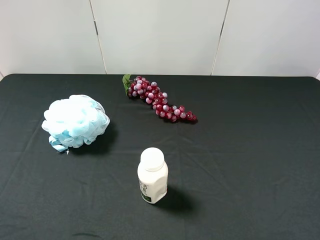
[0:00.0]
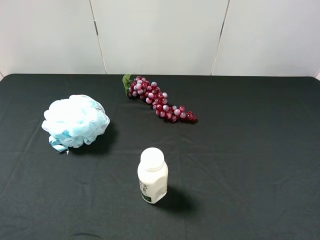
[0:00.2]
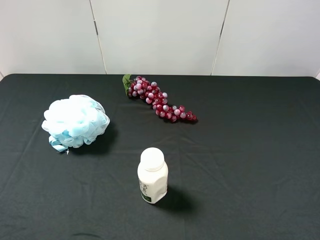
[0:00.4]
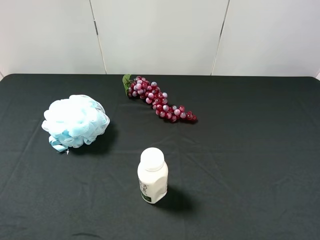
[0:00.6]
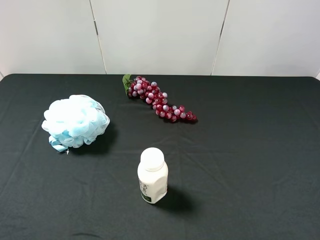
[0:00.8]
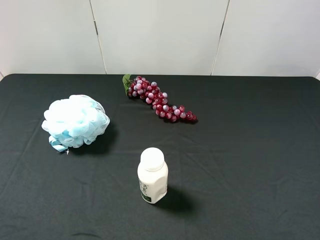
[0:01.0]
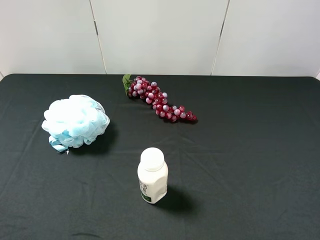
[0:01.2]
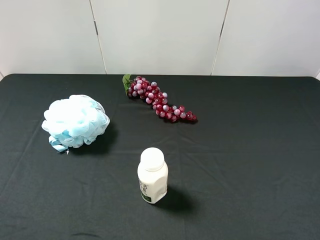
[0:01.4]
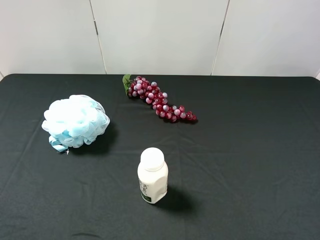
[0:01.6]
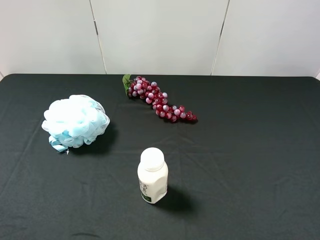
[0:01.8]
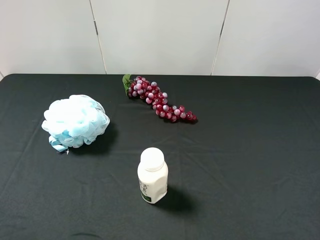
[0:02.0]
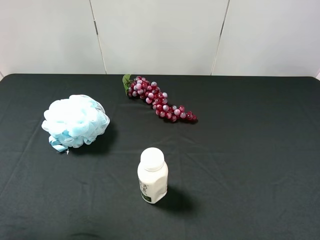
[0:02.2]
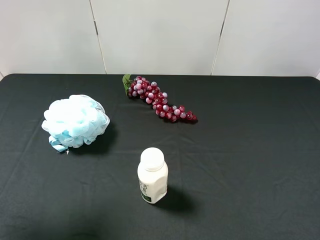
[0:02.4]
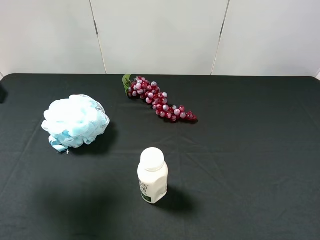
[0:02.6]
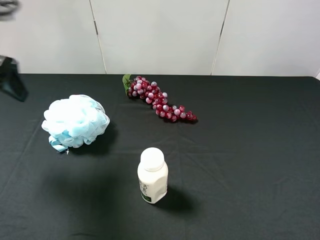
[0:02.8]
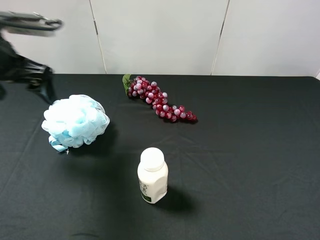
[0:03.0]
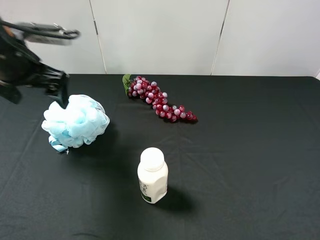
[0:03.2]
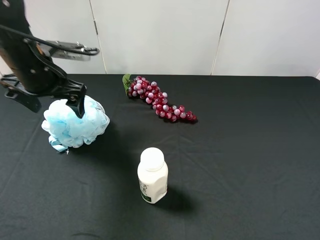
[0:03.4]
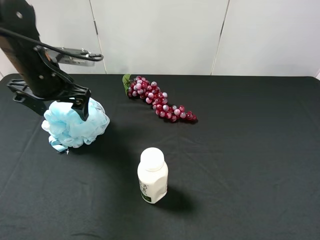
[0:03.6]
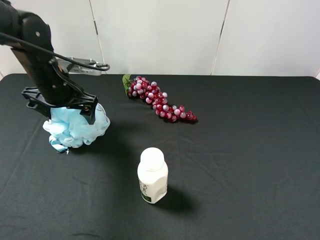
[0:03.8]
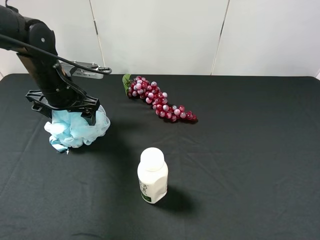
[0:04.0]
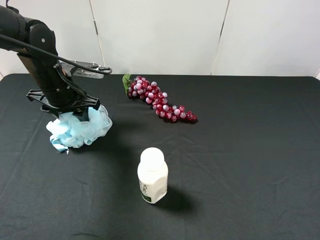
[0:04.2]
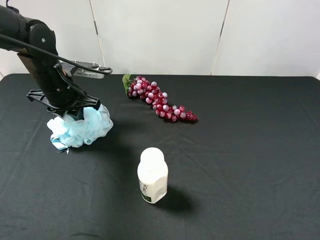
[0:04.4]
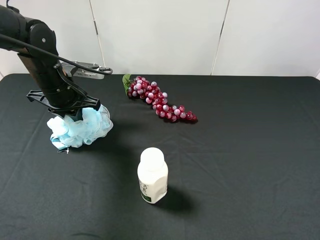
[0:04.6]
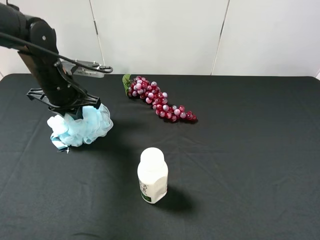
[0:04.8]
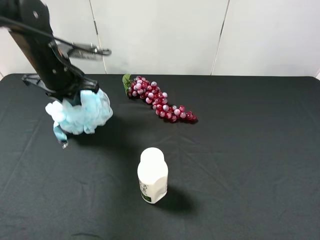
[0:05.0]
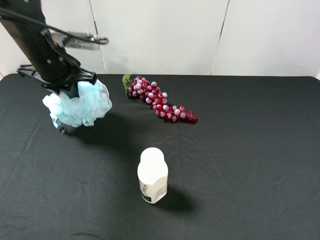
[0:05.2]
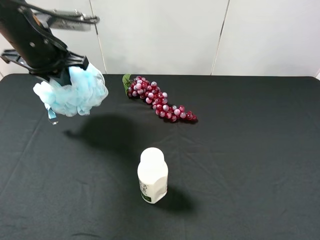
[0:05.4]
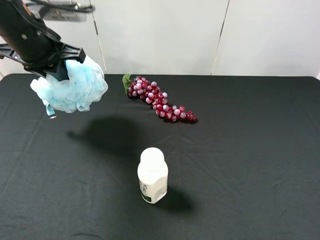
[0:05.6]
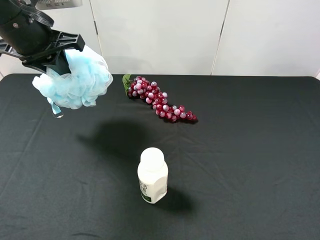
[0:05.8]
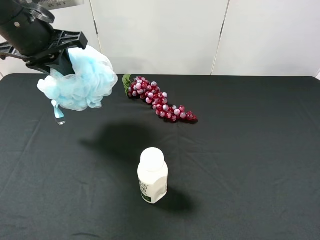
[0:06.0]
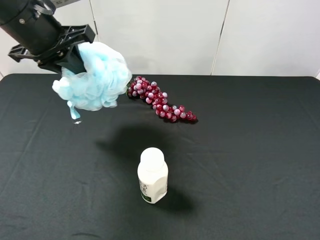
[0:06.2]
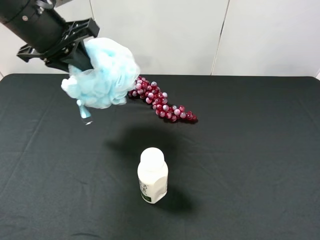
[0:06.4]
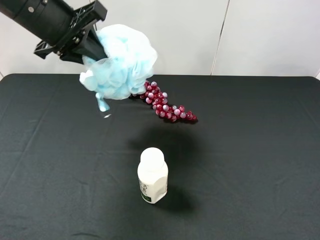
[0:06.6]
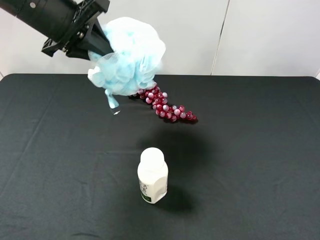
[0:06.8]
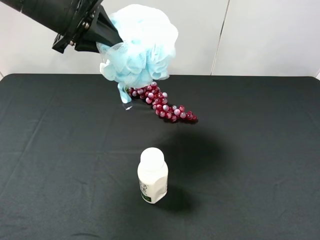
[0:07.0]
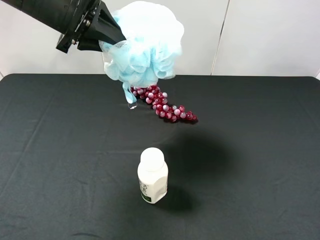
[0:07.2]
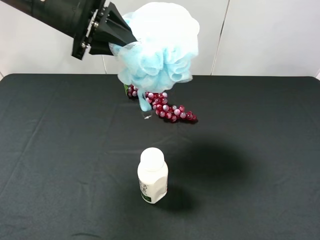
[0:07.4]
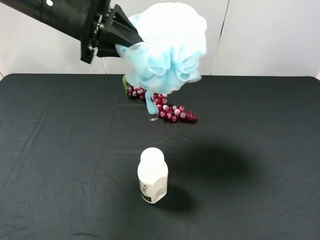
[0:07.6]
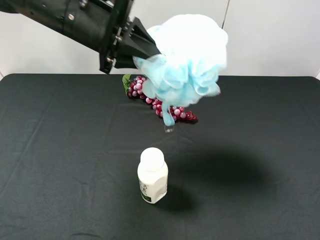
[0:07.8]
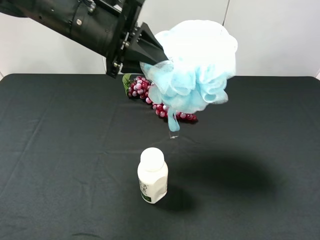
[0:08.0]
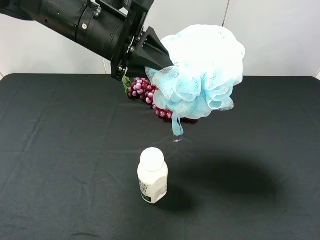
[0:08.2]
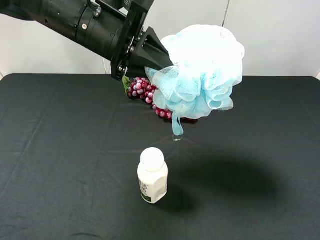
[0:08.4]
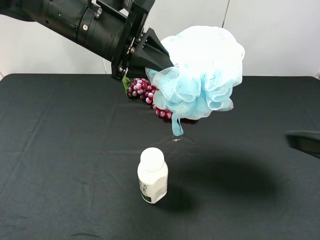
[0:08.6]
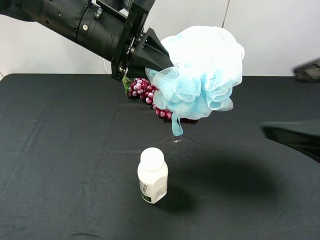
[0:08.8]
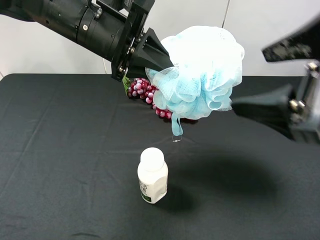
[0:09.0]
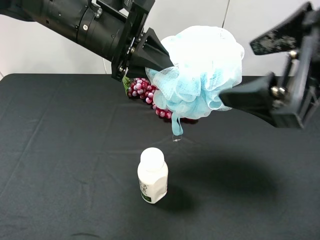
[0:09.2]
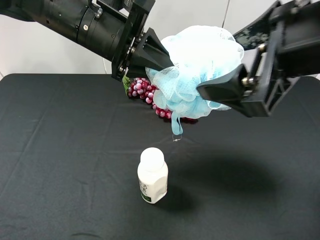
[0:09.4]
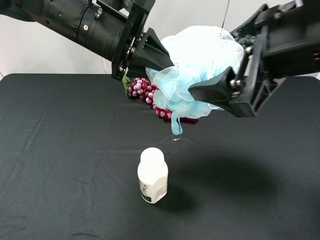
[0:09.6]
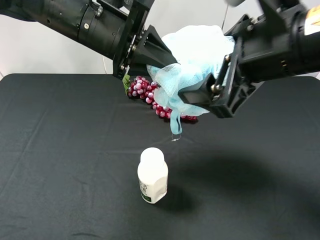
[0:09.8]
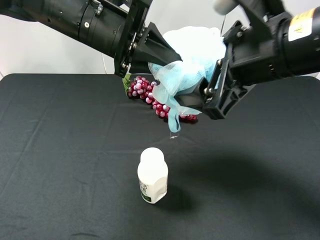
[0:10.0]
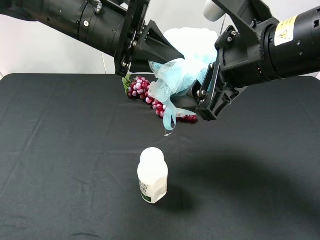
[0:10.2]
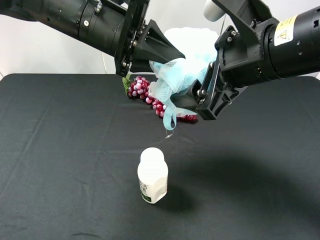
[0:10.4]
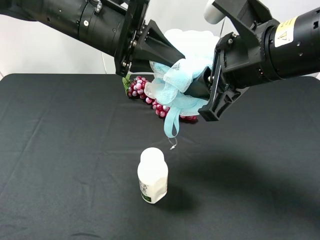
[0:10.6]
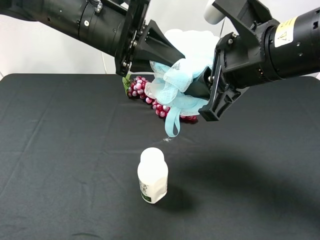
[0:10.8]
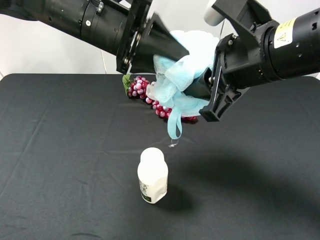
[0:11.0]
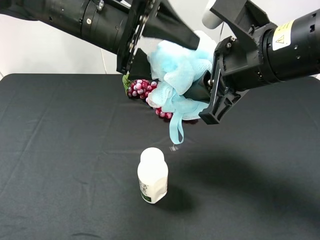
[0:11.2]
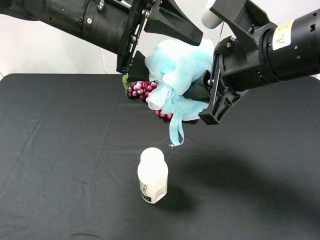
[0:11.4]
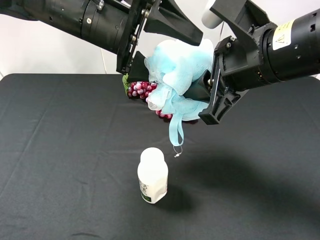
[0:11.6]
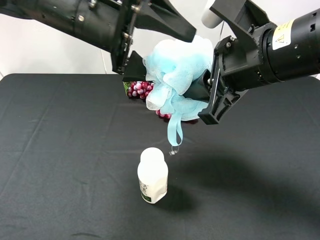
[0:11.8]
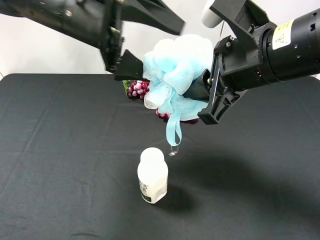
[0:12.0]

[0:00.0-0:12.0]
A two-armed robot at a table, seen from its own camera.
Task of the whole recording: use the left gripper to pick up the item and transfer it from the left gripper to the right gripper.
0:00.0 to 0:01.6: Neither gripper changes place.
0:01.6 to 0:03.0: The left gripper heads forward, covering some 30 cm.
0:03.0 to 0:04.4: The left gripper is displaced downward and forward by about 10 cm, and closes up.
0:04.4 to 0:06.0: The left gripper is displaced upward by about 15 cm.
0:06.0 to 0:07.6: The left gripper heads to the right, covering about 5 cm.
0:07.6 to 0:09.0: The right gripper travels forward, to the left and upward by roughly 15 cm.
0:09.0 to 0:10.4: The right gripper goes approximately 10 cm forward and to the left.
0:10.4 to 0:12.0: The right gripper closes its fingers. Meanwhile the left gripper opens its fingers.

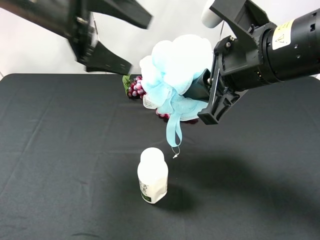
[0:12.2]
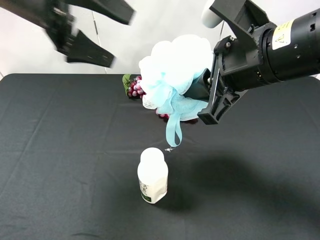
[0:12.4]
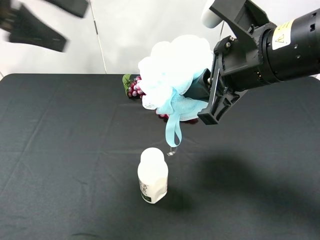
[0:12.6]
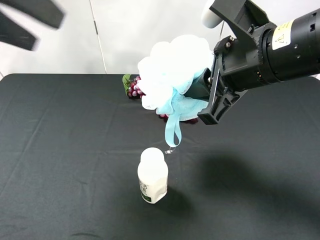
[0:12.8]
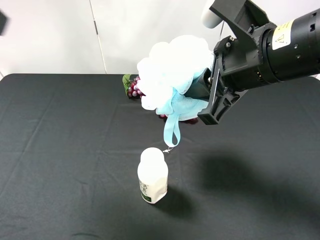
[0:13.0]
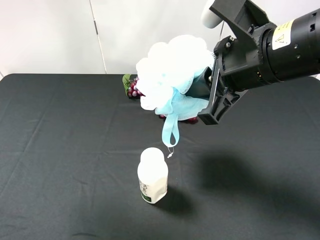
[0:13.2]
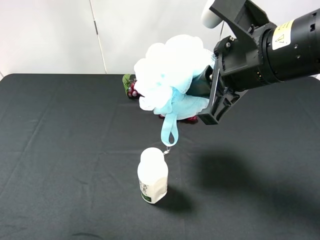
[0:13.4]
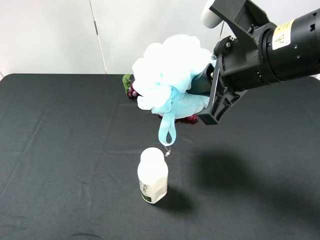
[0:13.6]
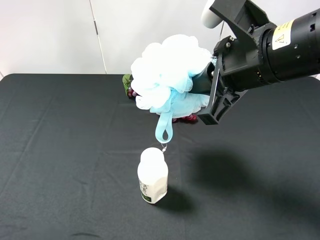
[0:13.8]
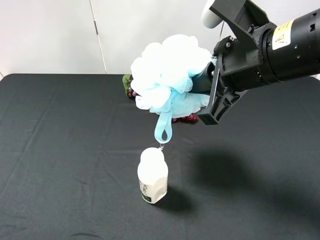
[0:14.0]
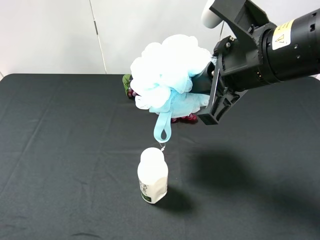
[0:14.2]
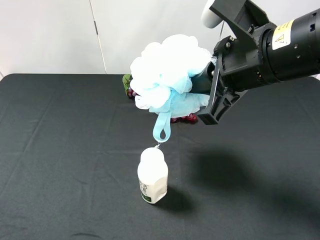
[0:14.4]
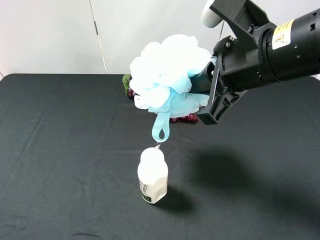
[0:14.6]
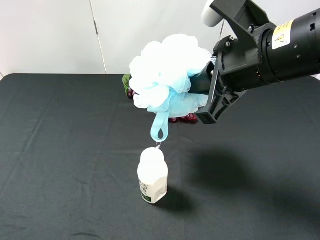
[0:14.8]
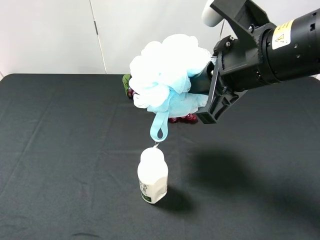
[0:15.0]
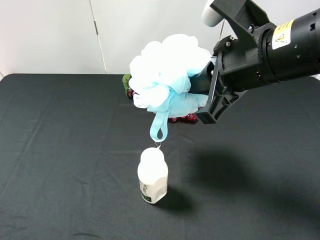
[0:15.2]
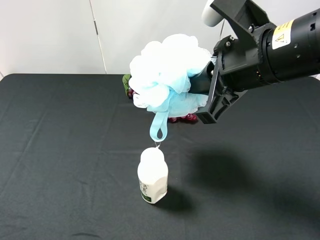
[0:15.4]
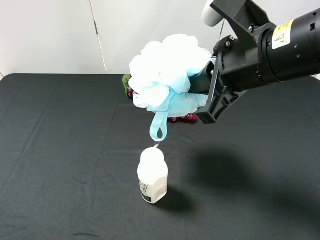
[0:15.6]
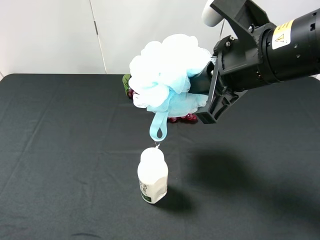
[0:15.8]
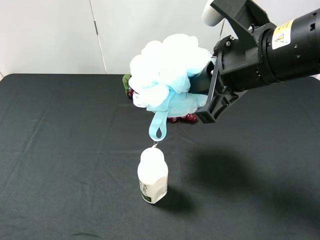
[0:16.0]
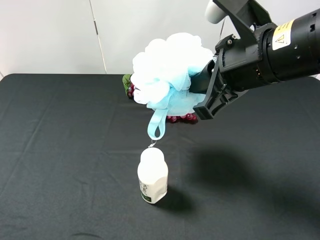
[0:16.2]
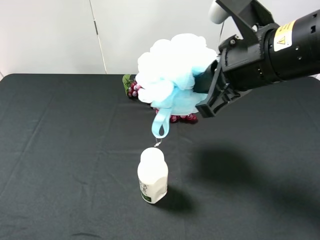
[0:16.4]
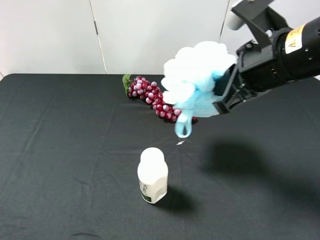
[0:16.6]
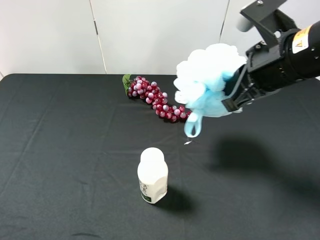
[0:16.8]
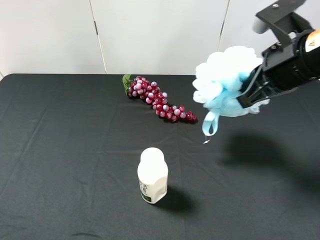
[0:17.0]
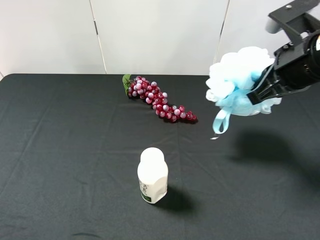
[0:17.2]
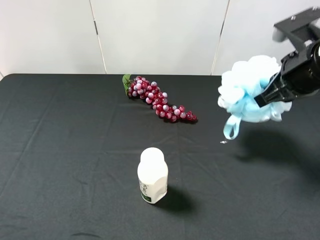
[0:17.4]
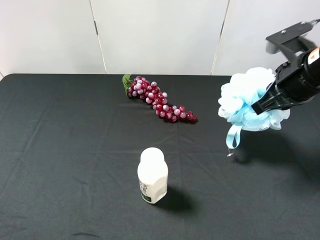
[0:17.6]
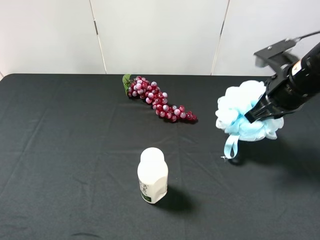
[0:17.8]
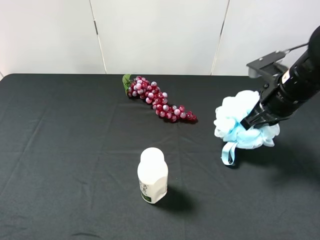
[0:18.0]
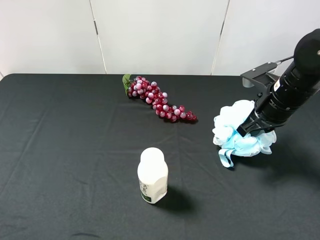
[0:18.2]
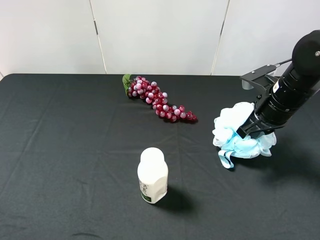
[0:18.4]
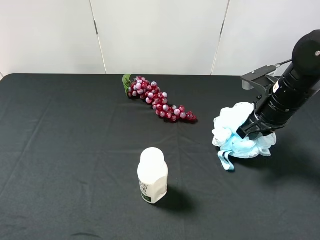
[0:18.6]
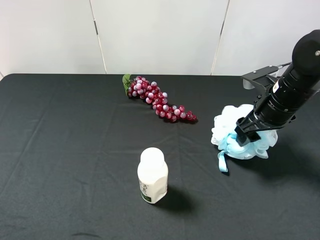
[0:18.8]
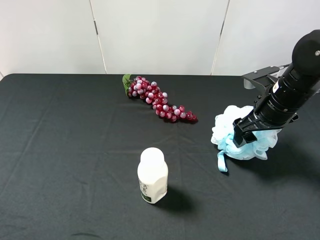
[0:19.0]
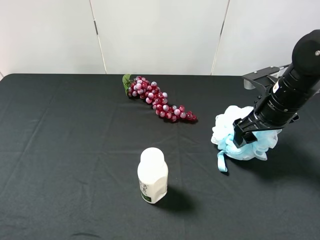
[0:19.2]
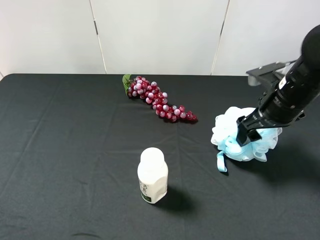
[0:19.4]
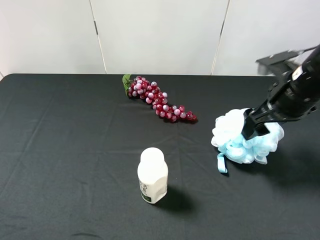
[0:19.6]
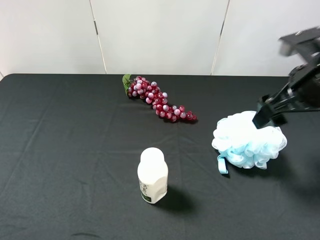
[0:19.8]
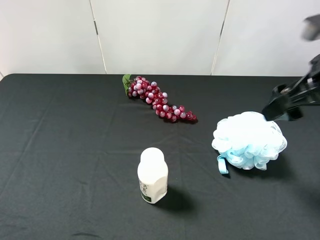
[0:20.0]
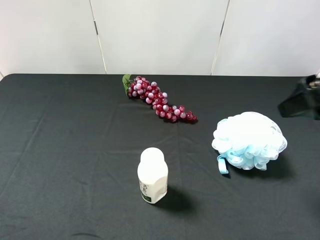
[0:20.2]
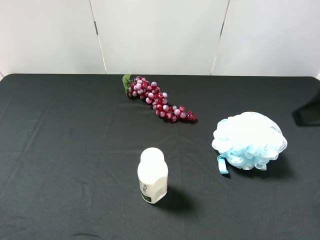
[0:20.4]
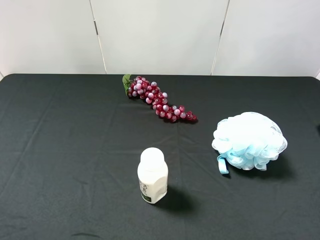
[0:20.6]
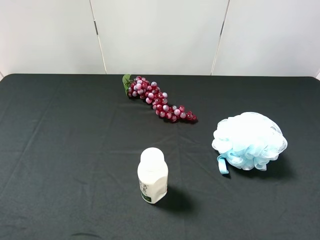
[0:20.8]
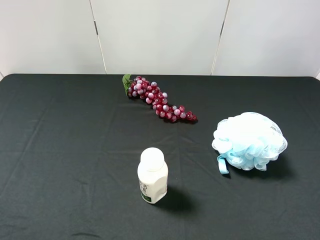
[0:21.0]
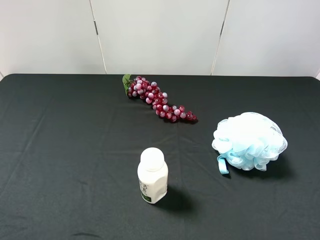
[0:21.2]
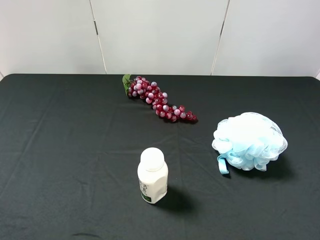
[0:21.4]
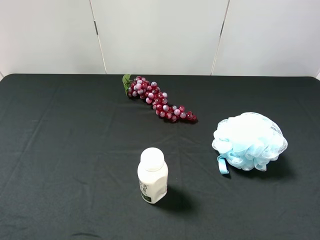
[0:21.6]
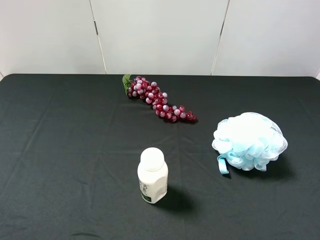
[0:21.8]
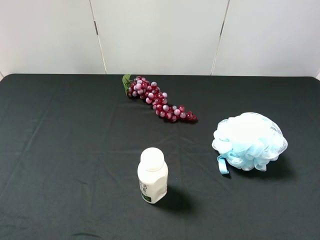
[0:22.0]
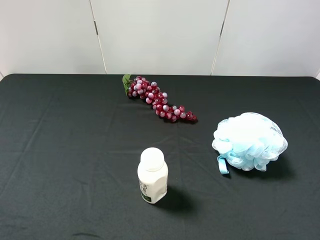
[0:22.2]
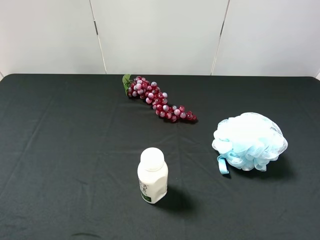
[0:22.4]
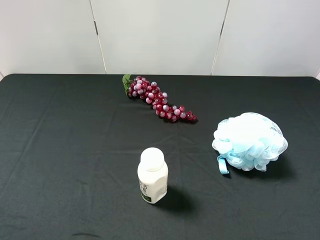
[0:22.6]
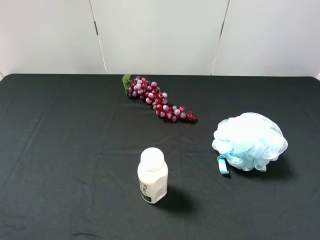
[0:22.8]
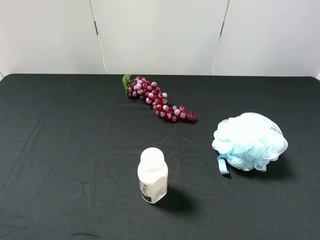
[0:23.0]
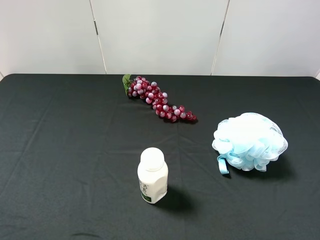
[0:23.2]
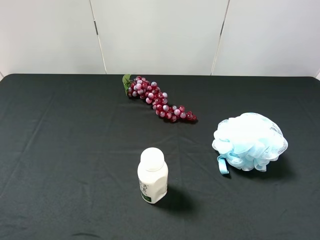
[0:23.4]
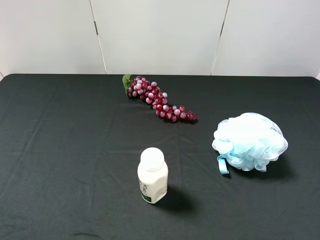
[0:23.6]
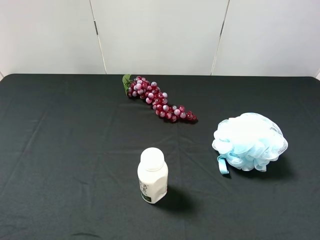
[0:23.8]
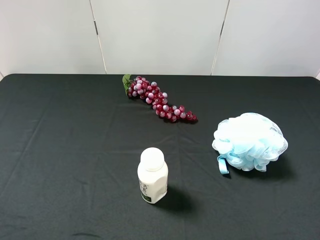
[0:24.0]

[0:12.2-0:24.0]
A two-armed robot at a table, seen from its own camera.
Task of the whole recording: use the left gripper to pick up the item and transfer it from the left gripper to the right gripper.
0:12.2 to 0:13.6: The left gripper is displaced backward, to the left and upward by about 25 cm.
0:13.6 to 0:15.2: The left gripper moves downward and backward, approximately 15 cm.
0:15.2 to 0:16.6: The grippers make only small movements.
0:16.6 to 0:18.2: The right gripper shifts about 15 cm downward, to the right and forward.
0:18.2 to 0:19.6: The right gripper opens its fingers.
0:19.6 to 0:21.0: The right gripper moves backward and upward, roughly 25 cm.
